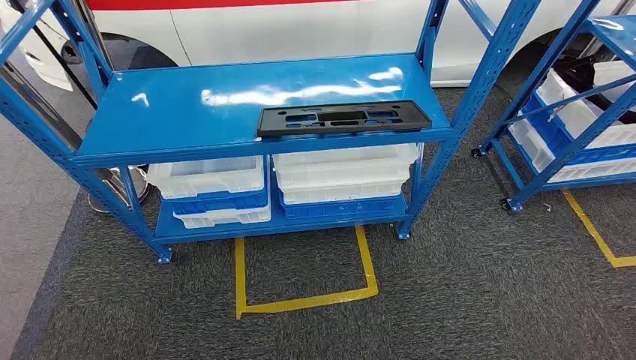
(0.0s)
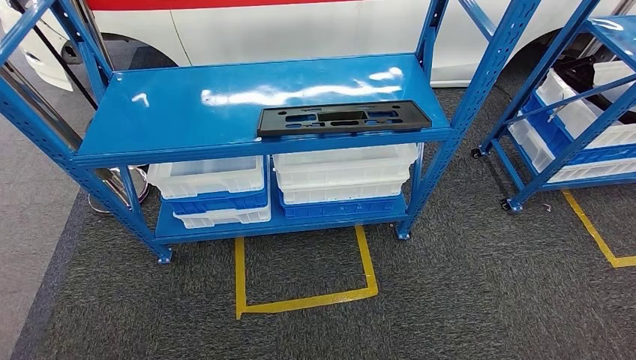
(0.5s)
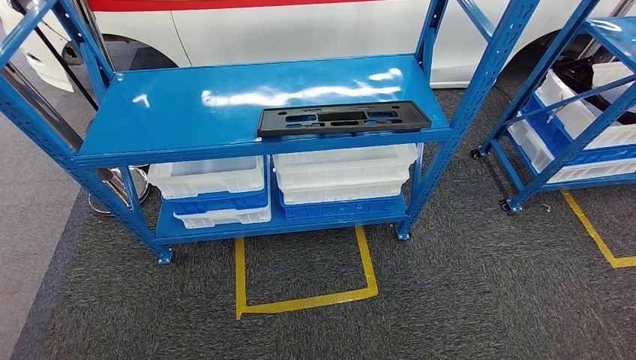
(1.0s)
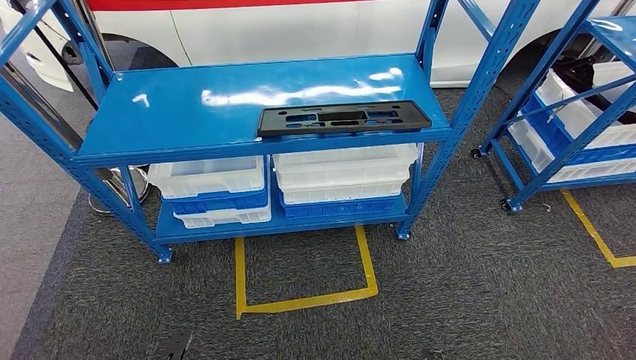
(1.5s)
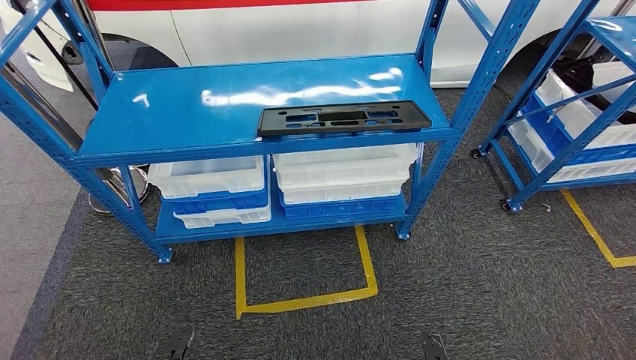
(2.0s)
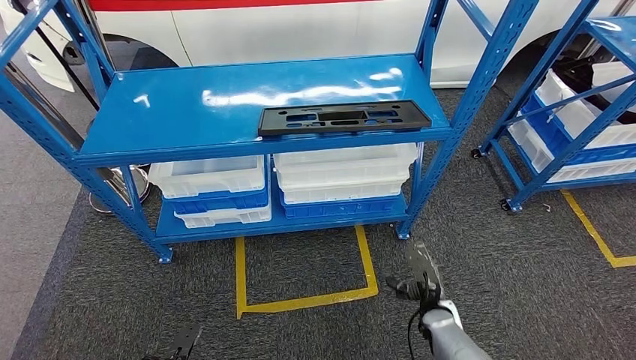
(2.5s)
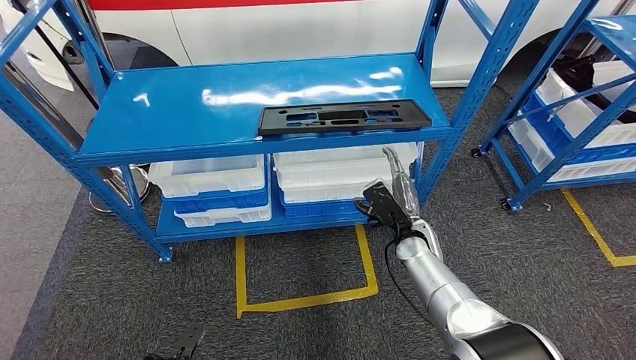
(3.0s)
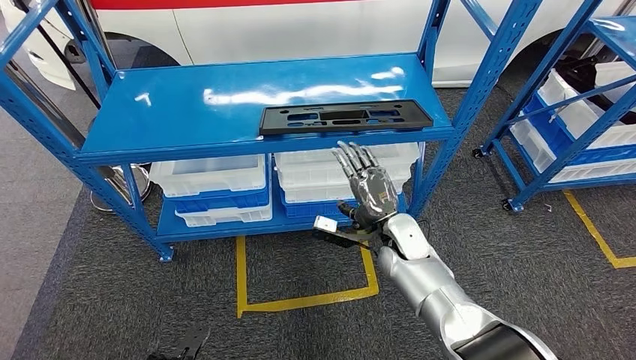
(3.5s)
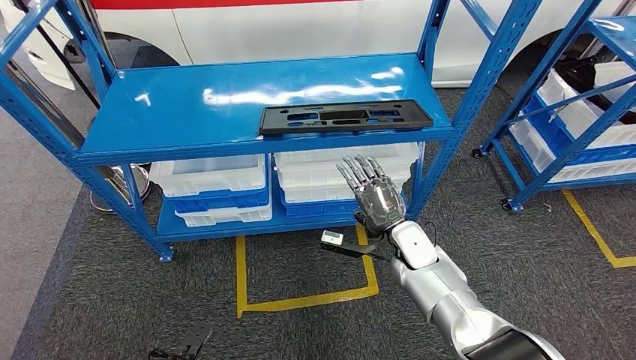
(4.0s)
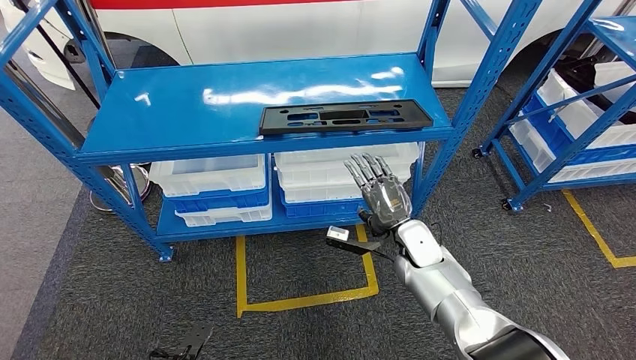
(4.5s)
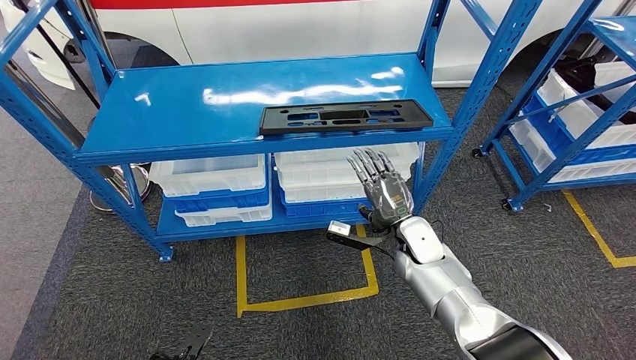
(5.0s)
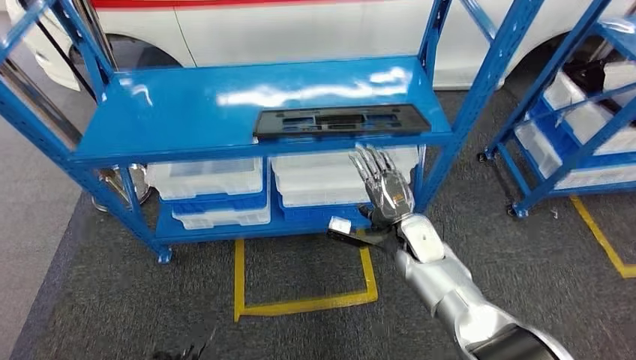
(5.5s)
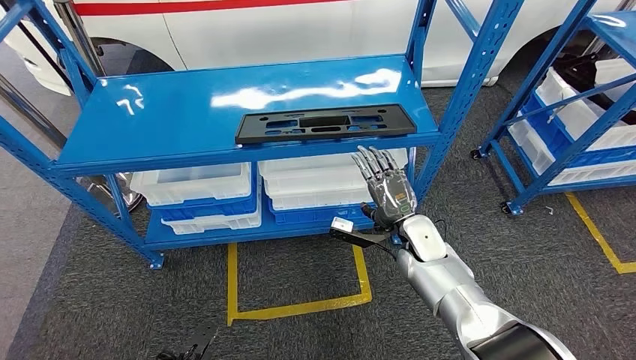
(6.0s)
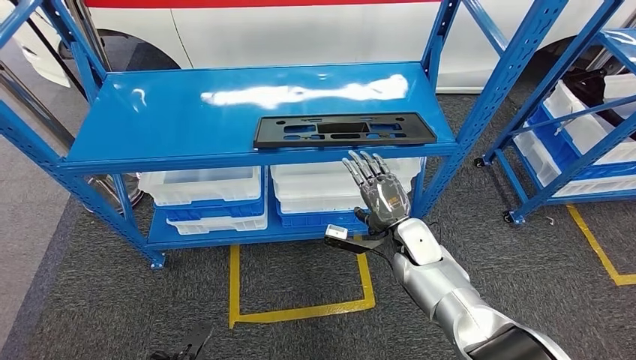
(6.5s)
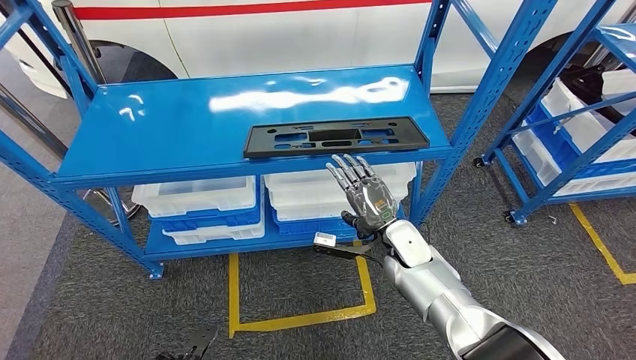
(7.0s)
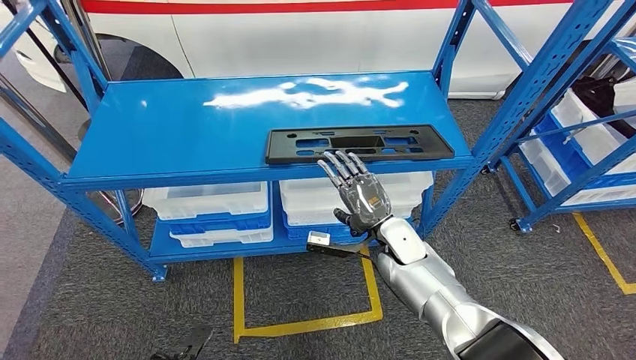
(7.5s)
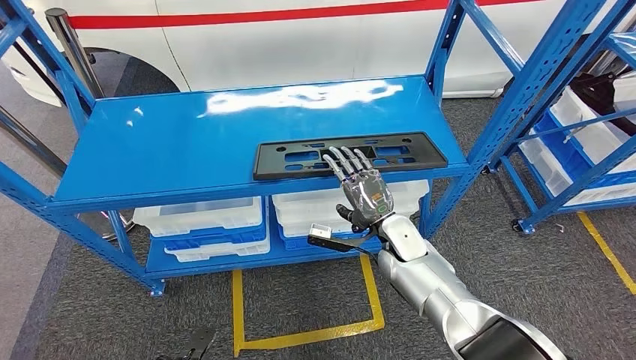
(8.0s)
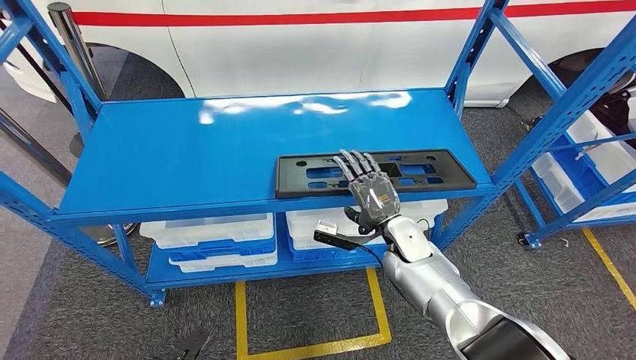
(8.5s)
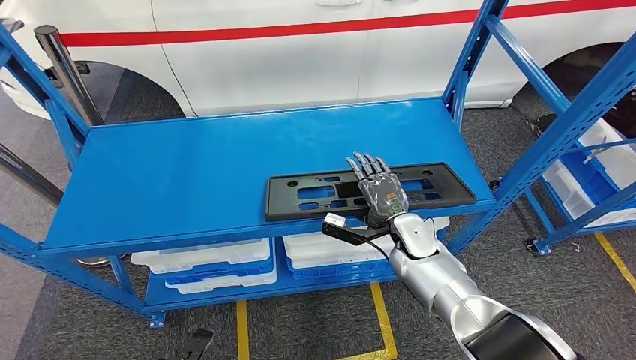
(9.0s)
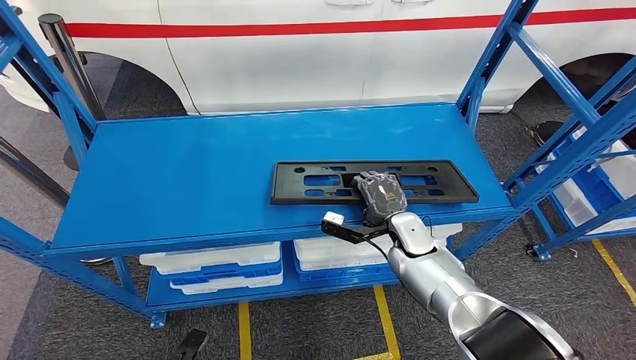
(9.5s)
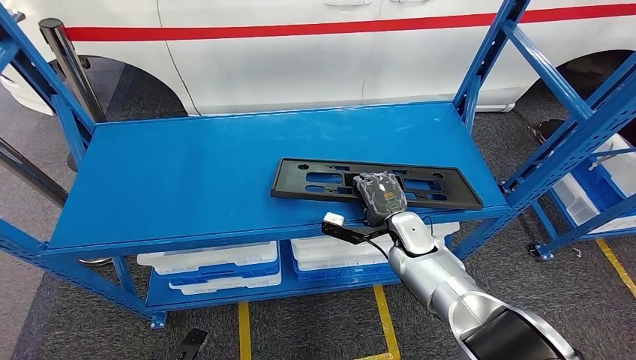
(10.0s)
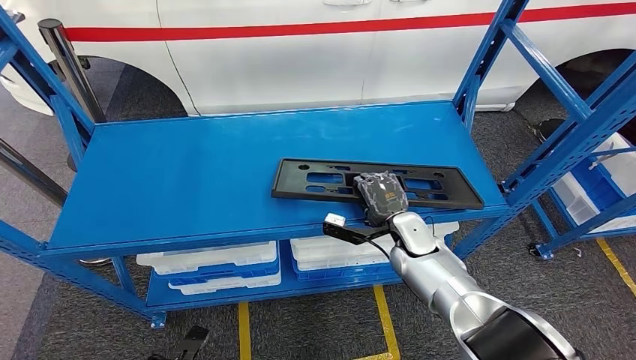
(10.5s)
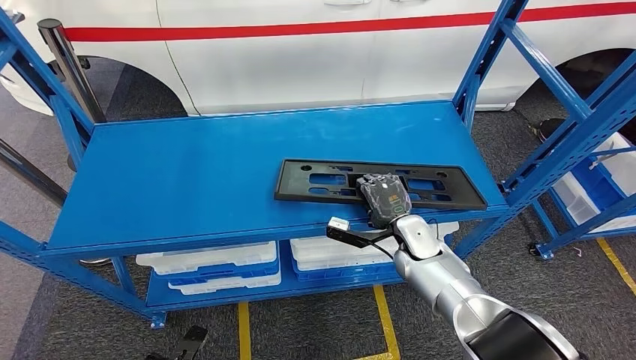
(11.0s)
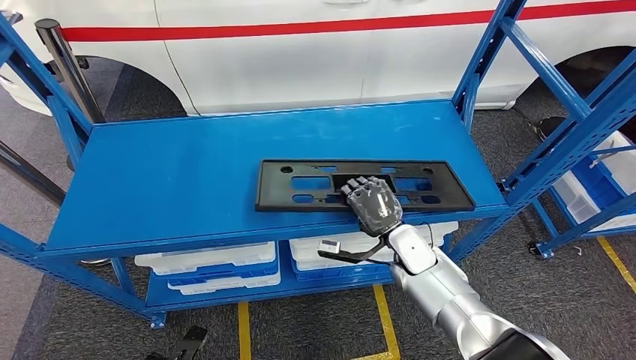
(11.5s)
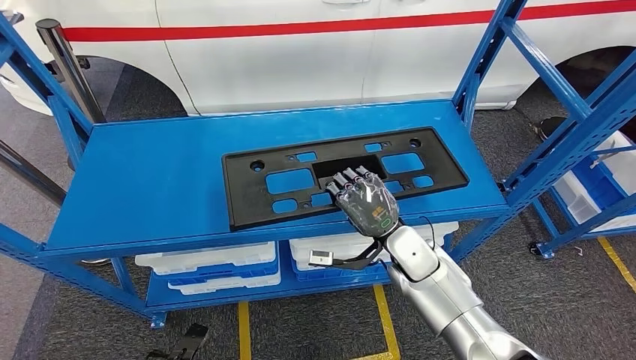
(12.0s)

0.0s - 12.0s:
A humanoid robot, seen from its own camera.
2.0s - 4.0s: The right hand goes approximately 35 cm forward and upward.
10.0s - 12.0s: The right hand moves about 5 cm.

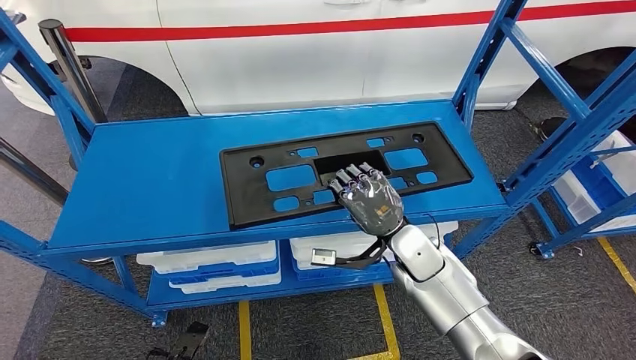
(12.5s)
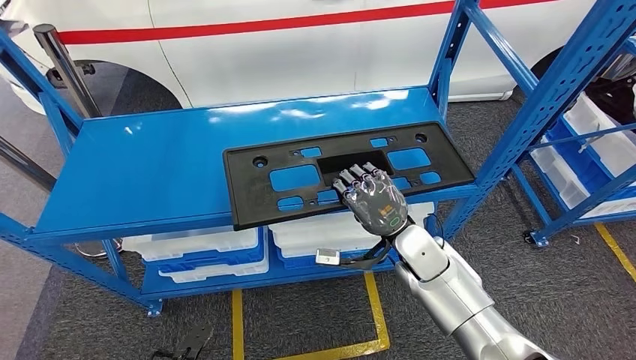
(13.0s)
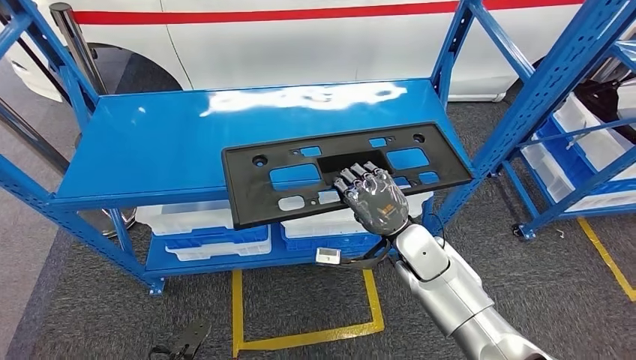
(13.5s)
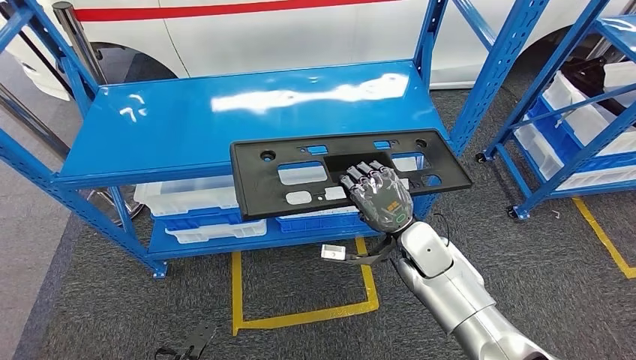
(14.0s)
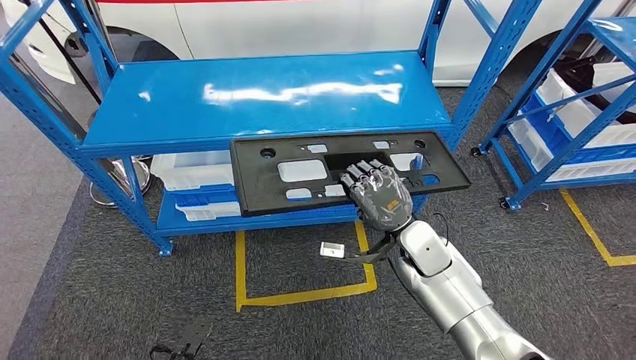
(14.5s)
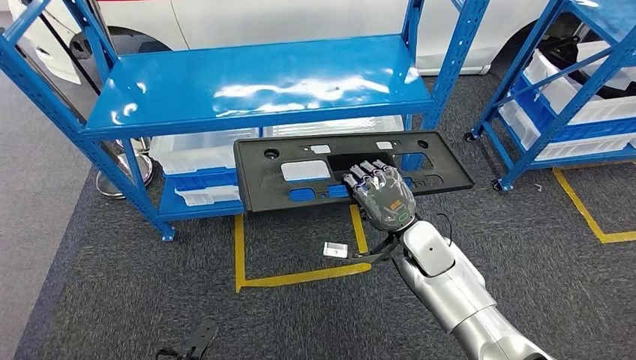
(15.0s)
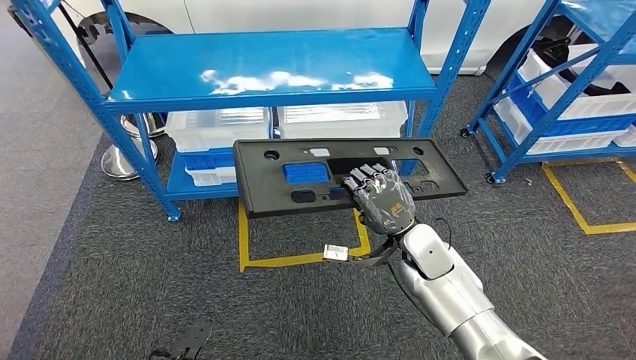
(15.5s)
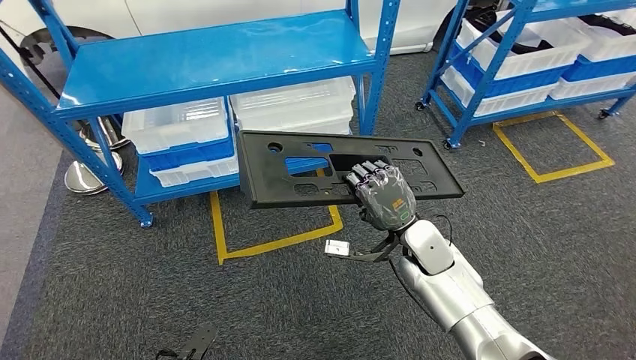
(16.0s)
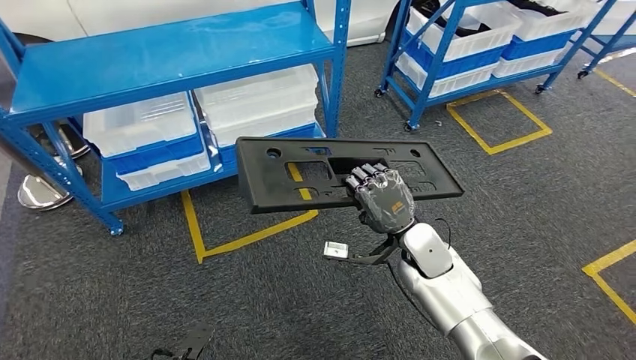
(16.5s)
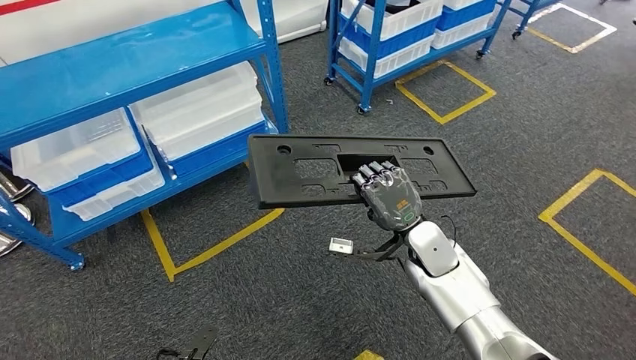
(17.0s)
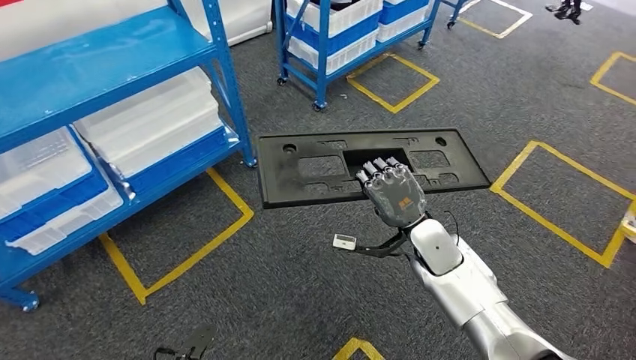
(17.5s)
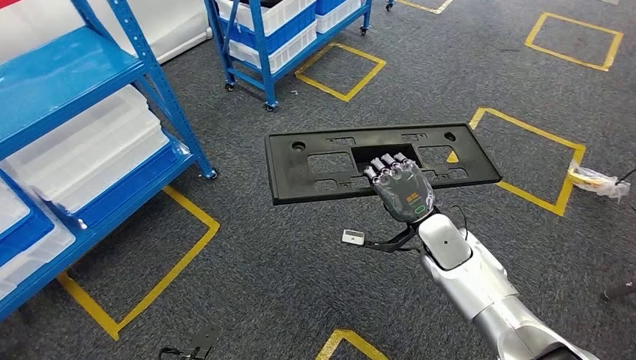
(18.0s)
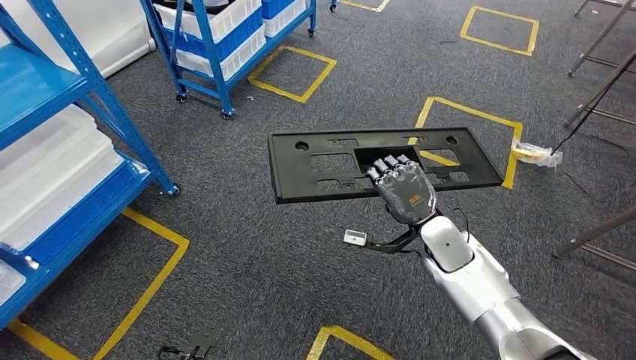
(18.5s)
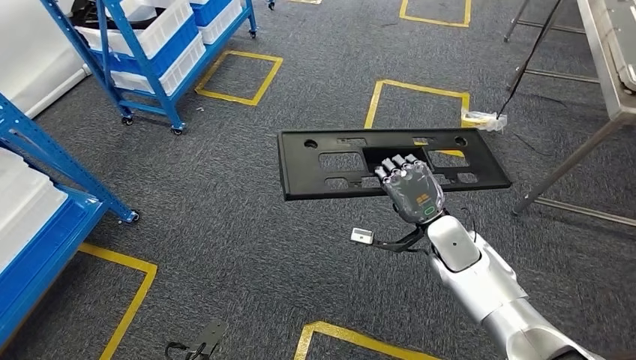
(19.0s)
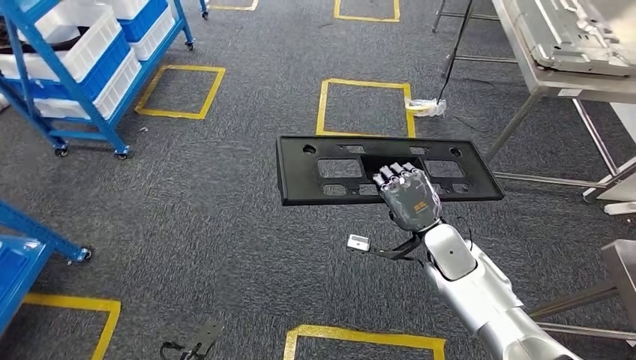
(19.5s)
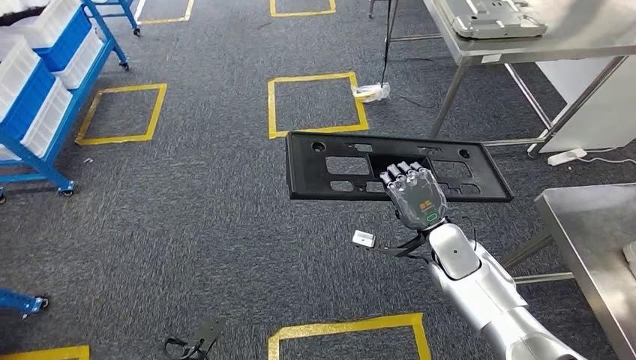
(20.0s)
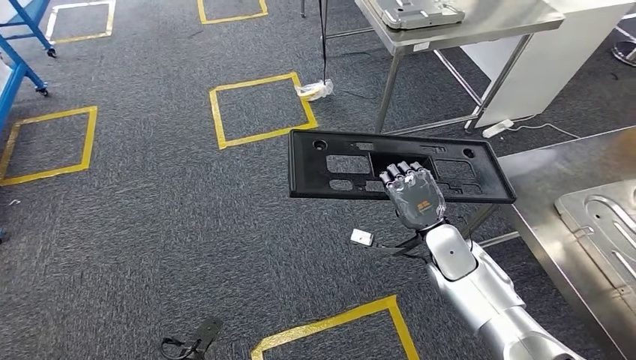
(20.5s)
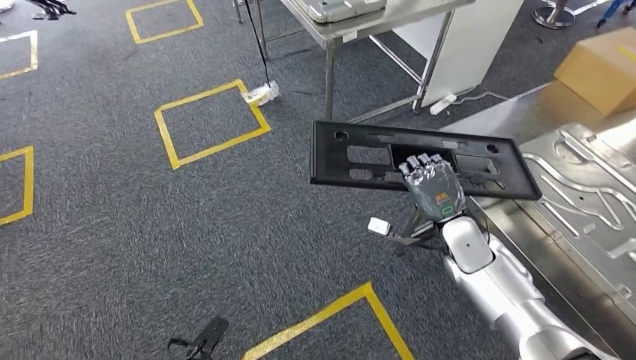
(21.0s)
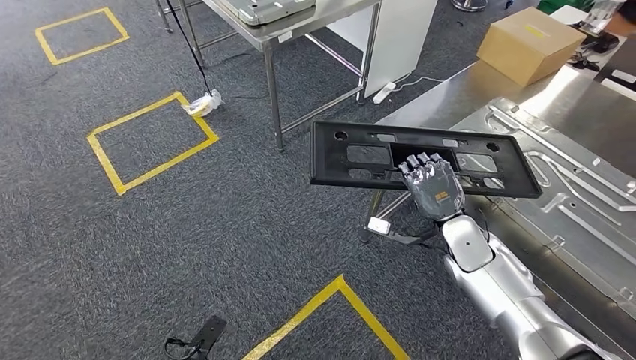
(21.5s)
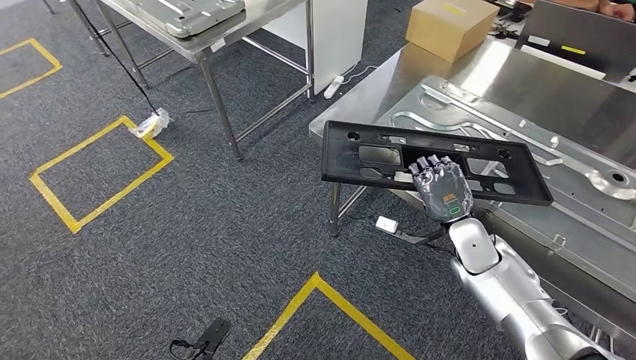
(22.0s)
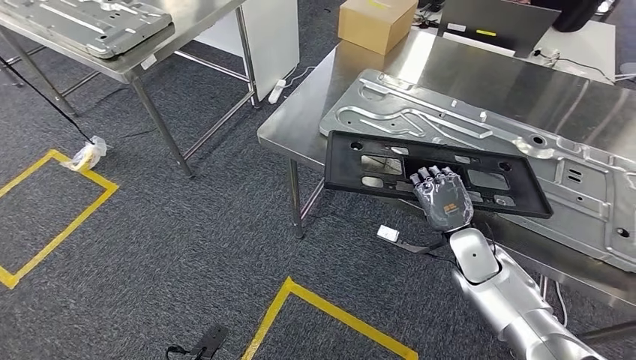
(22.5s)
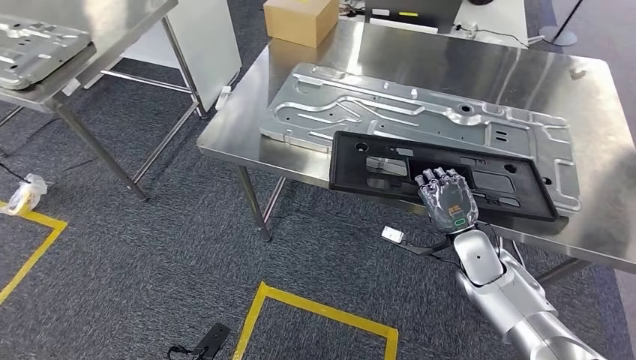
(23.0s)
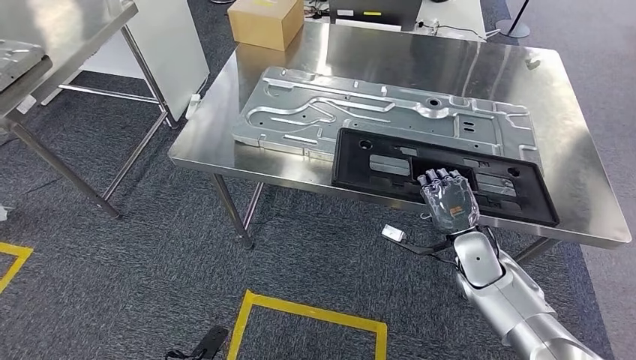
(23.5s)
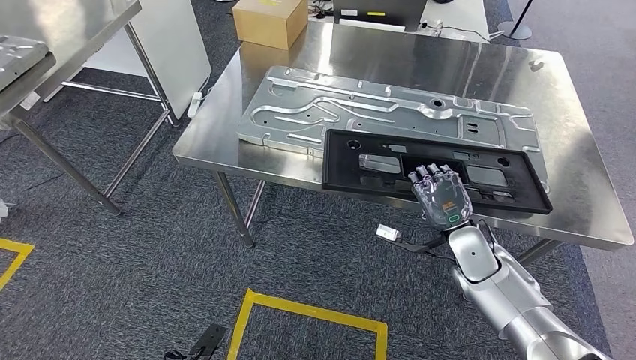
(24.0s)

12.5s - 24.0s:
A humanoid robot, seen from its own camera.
Step, 13.5s - 23.0s: Move the large material to the workbench.
